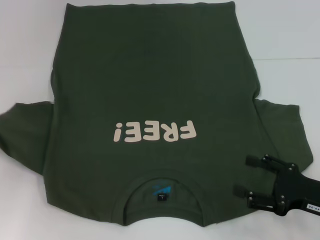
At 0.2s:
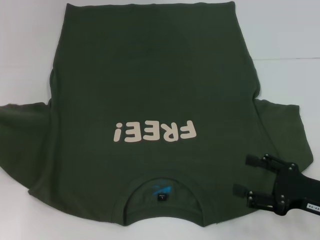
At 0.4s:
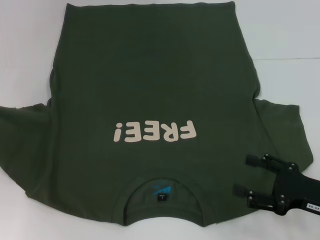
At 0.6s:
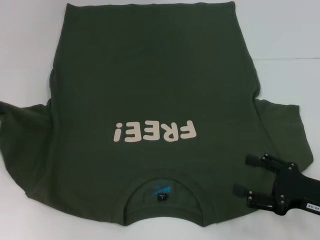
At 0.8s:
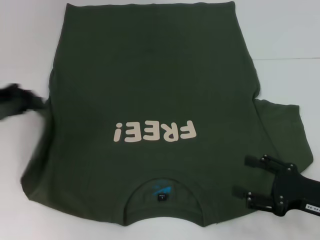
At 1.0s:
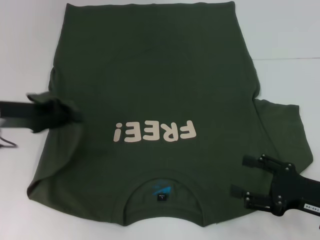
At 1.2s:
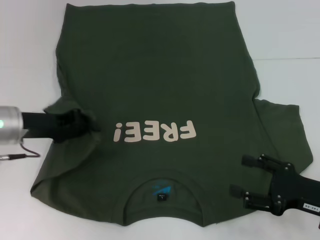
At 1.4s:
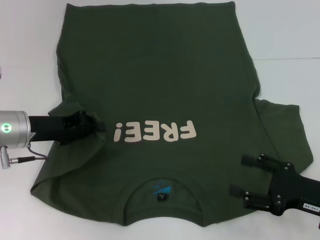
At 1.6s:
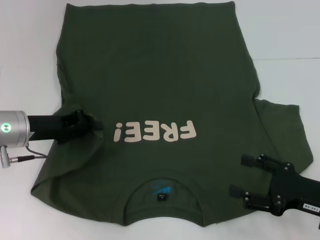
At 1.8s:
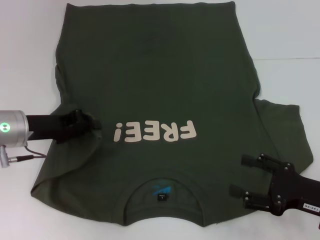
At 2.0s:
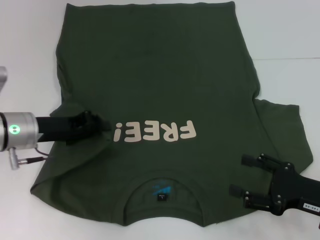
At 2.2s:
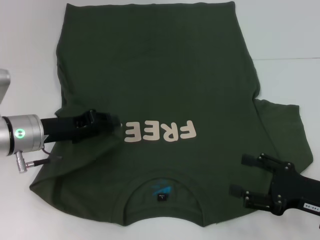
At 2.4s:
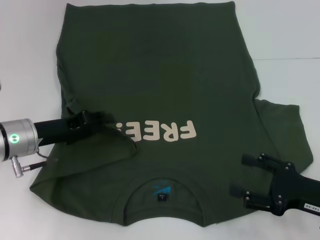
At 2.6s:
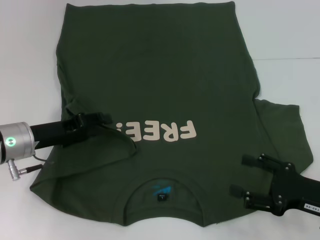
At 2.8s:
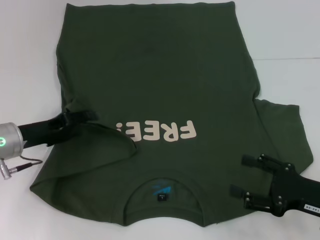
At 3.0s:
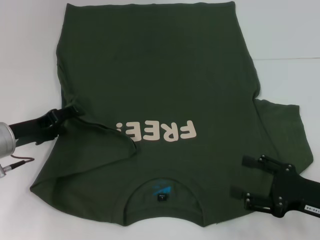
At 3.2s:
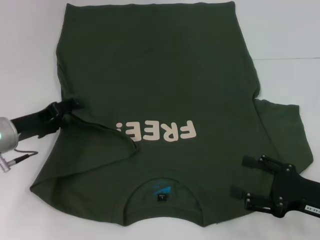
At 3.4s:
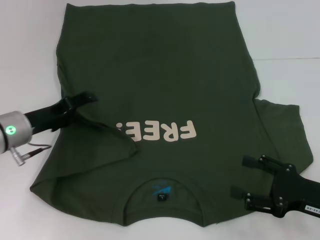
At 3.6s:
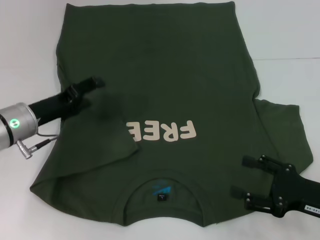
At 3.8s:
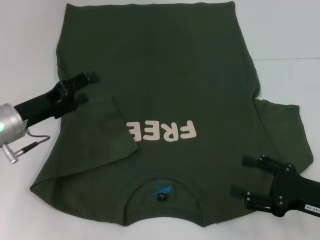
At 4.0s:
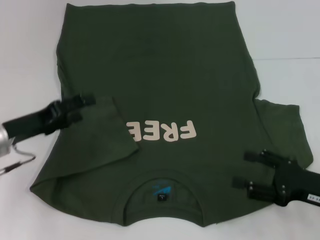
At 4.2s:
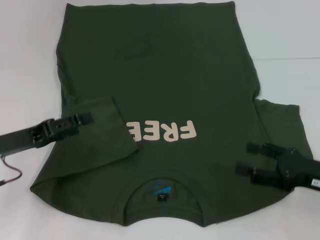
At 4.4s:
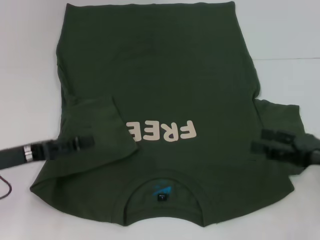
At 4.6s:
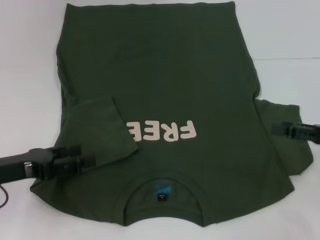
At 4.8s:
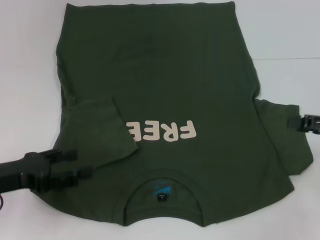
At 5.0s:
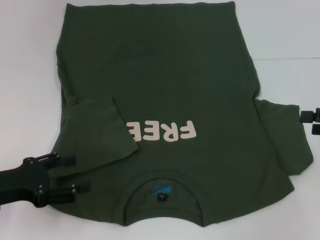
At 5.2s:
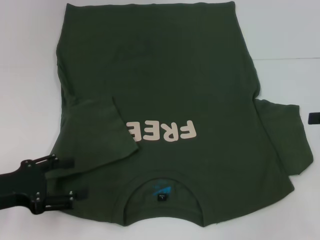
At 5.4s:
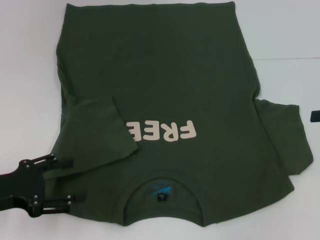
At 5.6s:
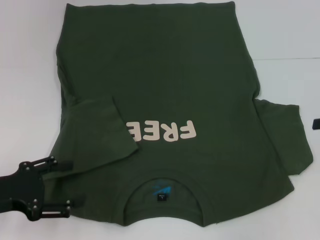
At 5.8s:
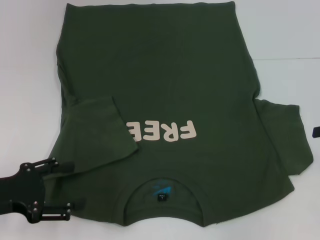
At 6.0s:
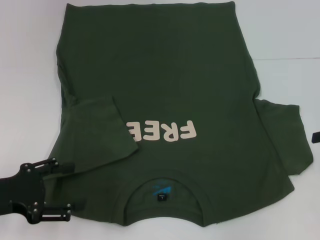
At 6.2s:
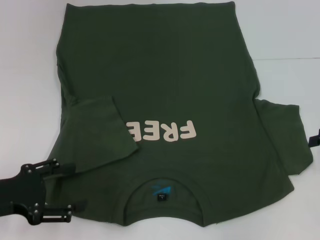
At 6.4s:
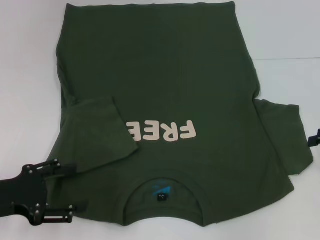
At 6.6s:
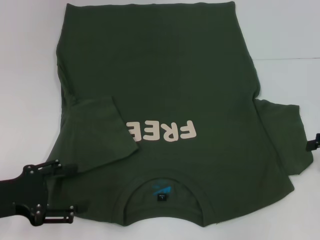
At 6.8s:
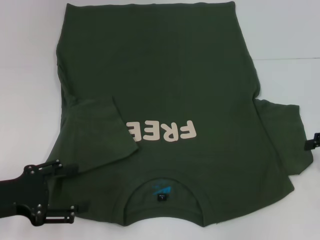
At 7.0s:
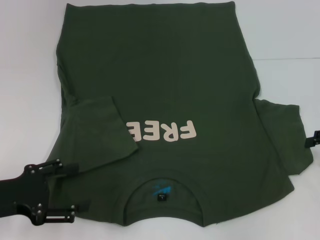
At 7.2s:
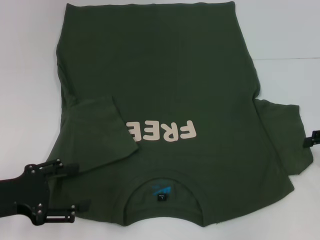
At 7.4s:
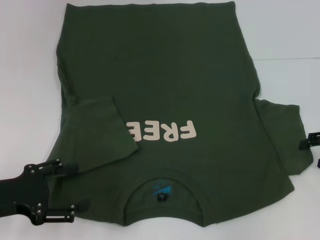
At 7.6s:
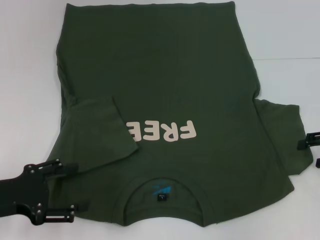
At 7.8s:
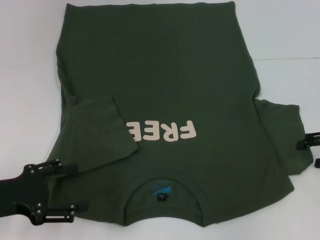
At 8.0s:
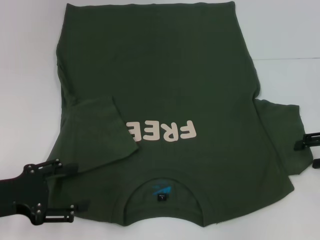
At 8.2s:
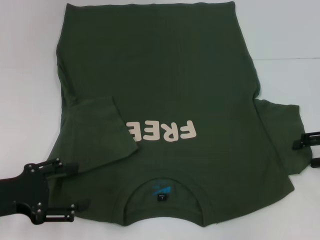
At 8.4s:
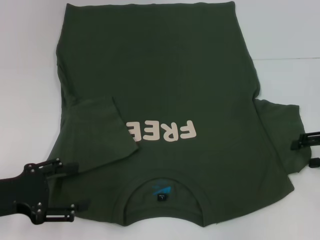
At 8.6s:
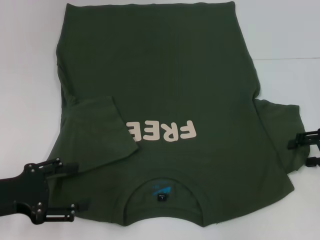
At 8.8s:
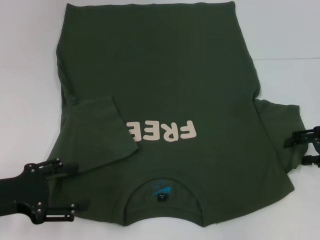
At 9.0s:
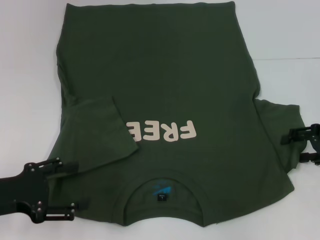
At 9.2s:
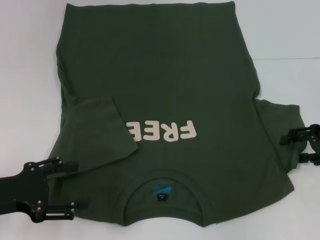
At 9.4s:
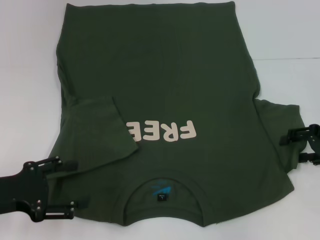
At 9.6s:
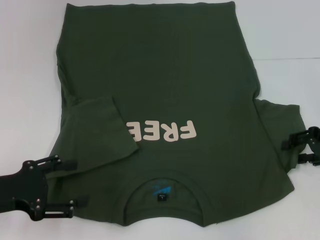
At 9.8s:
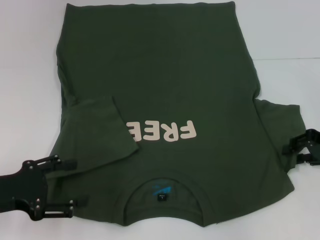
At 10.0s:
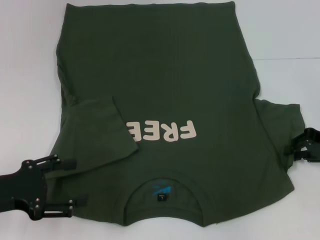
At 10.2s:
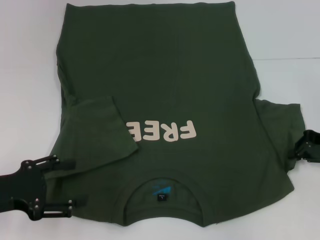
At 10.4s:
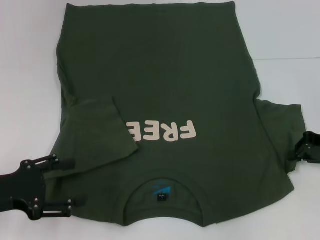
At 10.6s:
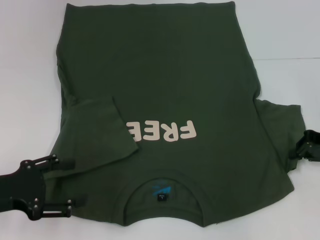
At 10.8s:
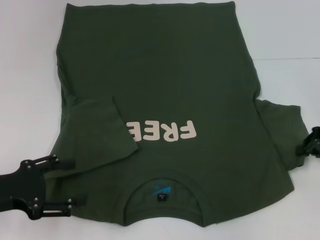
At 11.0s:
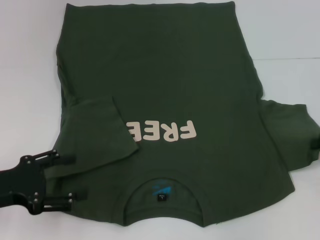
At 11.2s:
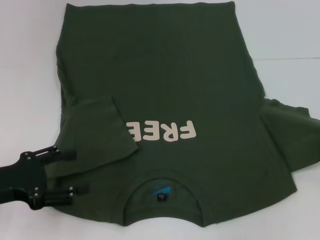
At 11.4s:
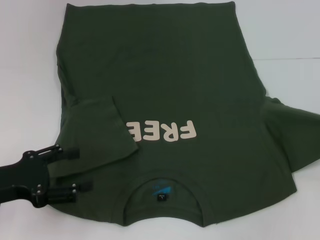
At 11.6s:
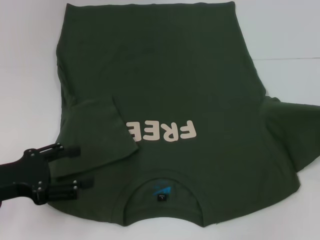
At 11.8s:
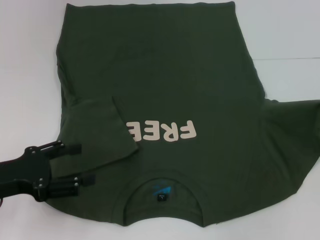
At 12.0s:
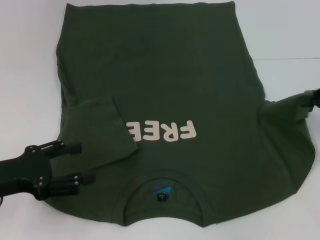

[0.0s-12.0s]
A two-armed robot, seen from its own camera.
Step, 0.0s to 3.8s: Fold the bottom left sleeve with your left hand.
0.0s to 1.6s: The left gripper goes roughly 15 cm to the right.
1.6s to 3.0s: The left gripper opens its fingers.
3.0s to 4.4s: The right gripper moves approximately 5 cm; the left gripper is displaced backward by roughly 5 cm.
4.4s to 6.0s: The right gripper moves to the right, upward and forward, some 10 cm.
6.0s to 9.0s: The grippers make only small movements.
9.0s to 10.4s: The right gripper closes its fingers.
10.4s to 12.0s: The right gripper heads upward, covering roughly 5 cm.

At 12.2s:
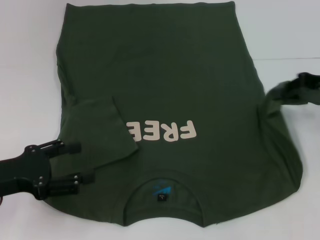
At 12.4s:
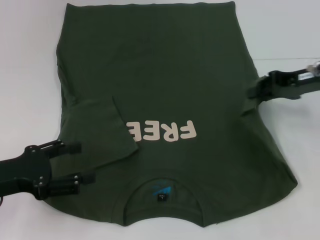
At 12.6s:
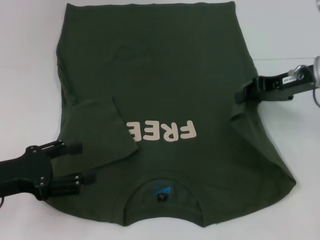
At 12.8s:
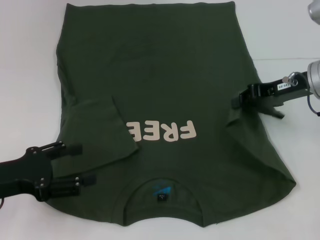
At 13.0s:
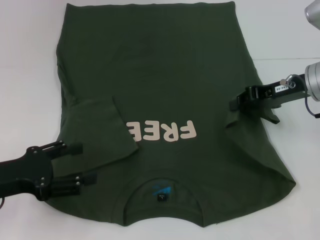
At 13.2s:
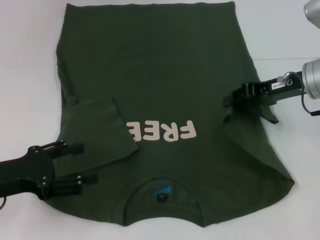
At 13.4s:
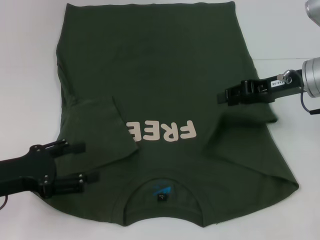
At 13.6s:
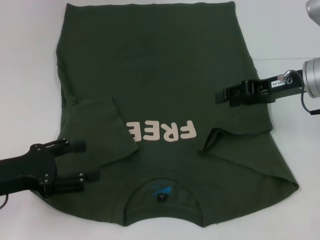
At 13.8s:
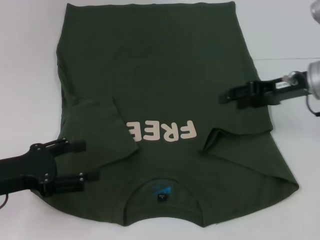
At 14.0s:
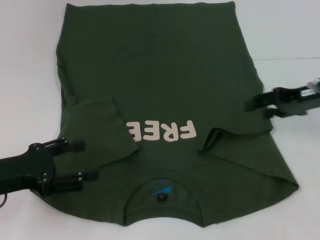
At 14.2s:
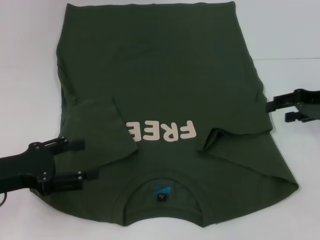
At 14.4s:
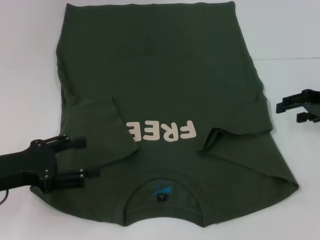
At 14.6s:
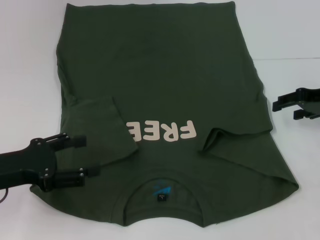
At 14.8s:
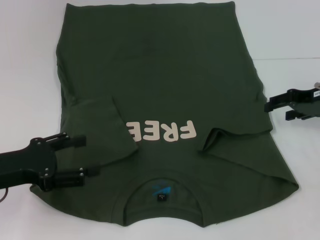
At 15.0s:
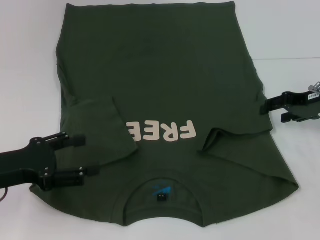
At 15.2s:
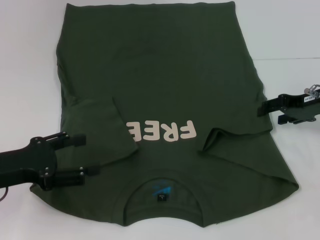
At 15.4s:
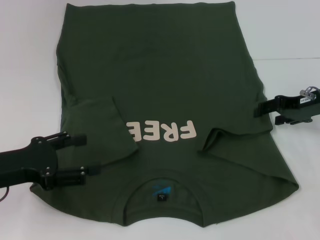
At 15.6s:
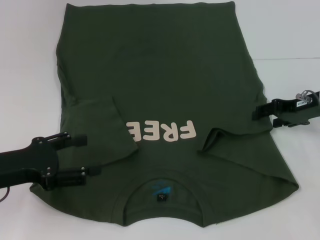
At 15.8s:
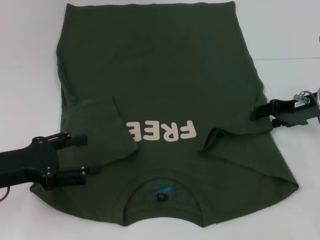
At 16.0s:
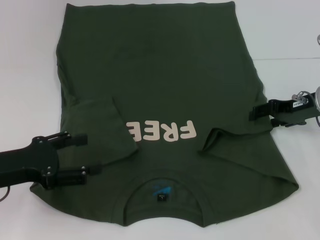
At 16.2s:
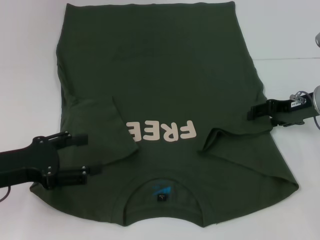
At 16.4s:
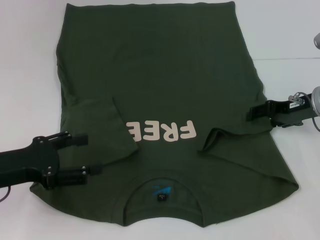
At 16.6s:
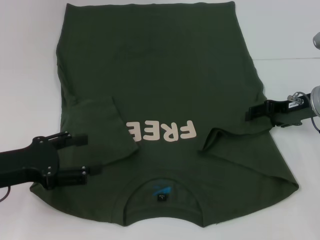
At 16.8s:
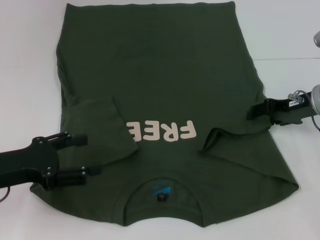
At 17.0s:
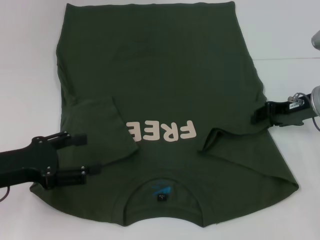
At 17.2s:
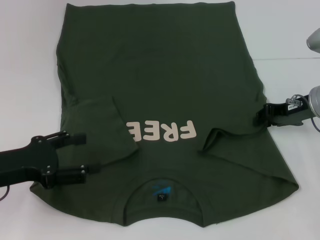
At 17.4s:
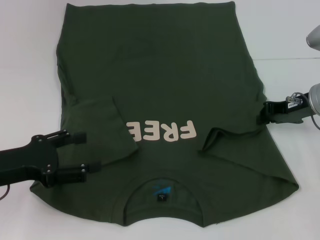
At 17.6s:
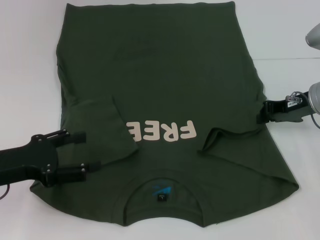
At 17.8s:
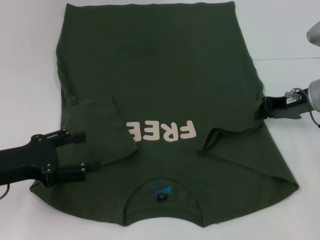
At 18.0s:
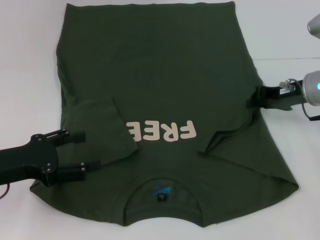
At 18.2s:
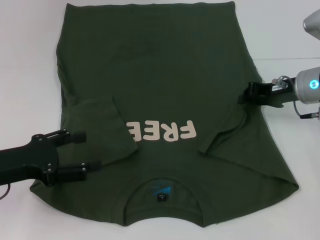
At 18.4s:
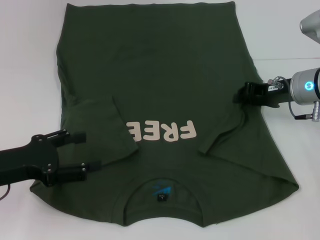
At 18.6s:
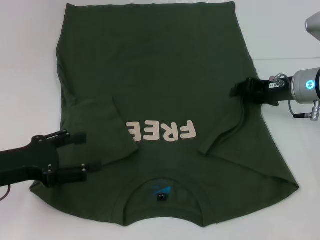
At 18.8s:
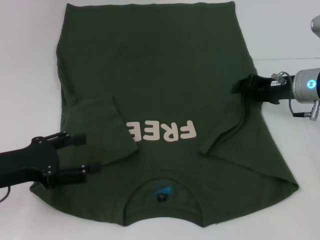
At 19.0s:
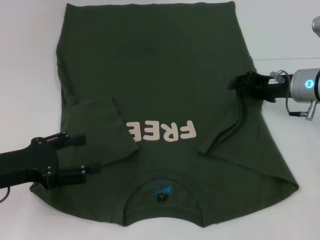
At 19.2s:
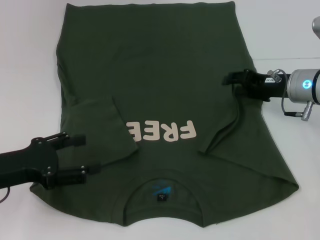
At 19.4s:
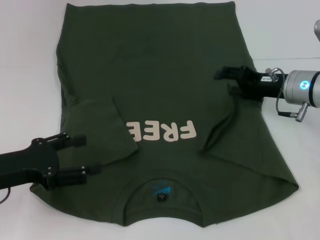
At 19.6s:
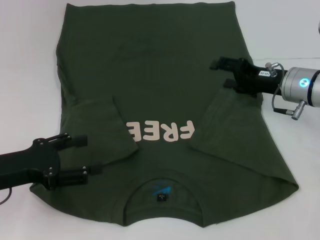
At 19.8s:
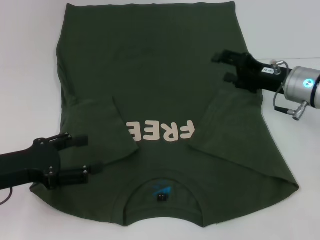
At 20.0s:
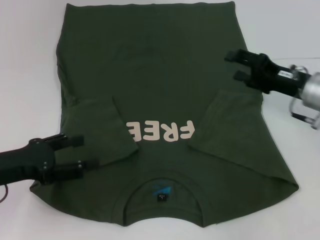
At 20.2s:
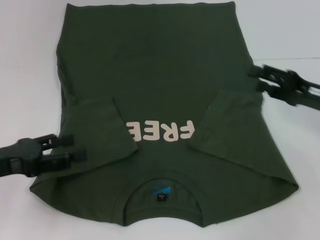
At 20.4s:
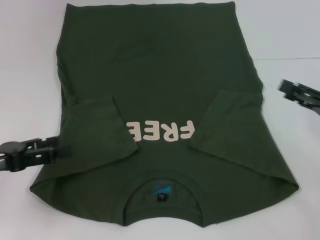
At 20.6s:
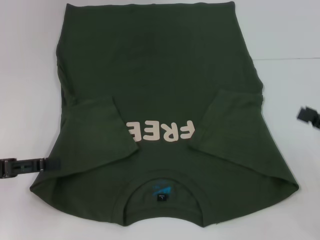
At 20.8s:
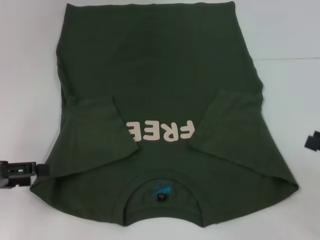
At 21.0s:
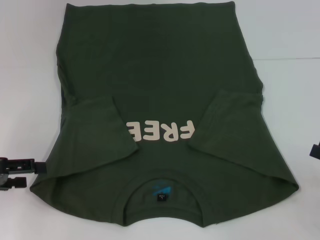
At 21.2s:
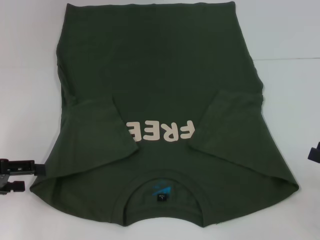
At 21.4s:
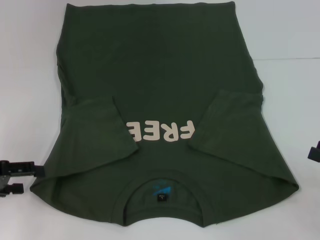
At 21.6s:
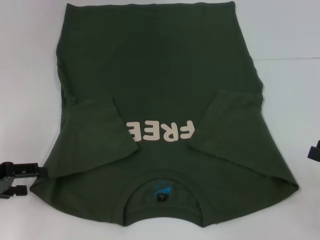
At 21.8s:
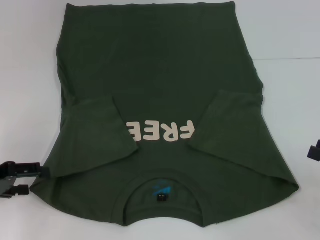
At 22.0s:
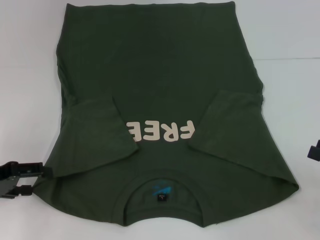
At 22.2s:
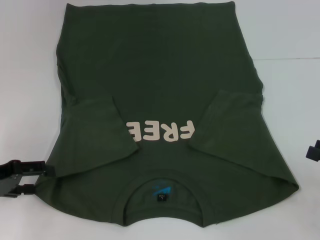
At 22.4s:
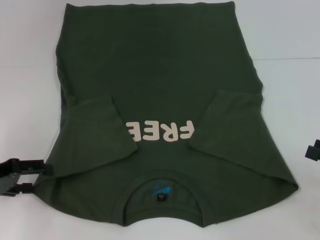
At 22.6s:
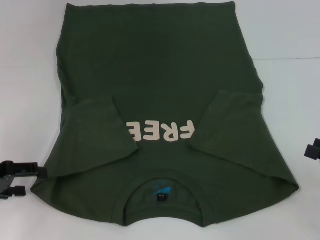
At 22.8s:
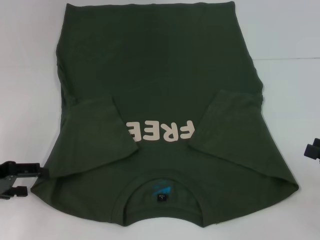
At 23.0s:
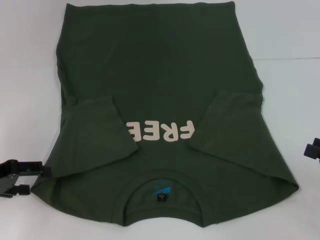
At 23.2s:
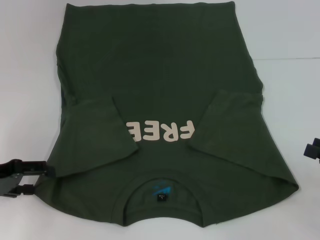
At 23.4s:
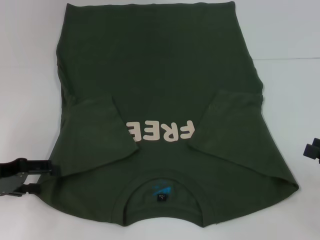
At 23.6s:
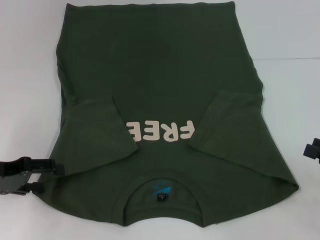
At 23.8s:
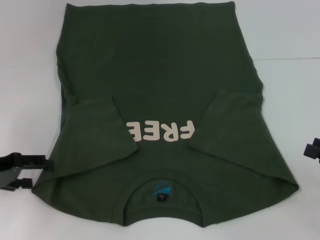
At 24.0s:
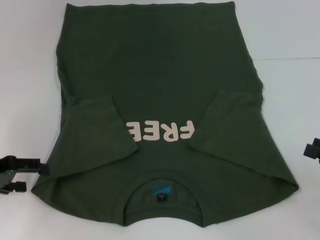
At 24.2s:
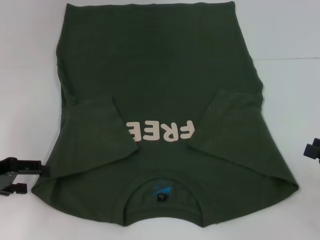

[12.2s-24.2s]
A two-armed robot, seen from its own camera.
Step, 12.2s to 20.0s: Fold the bottom right sleeve with your right hand.
12.2s to 13.8s: The right gripper moves to the left, roughly 5 cm, and opens its fingers.
15.2s to 16.6s: The grippers move only a little.
16.6s to 18.2s: The right gripper closes.
18.2s to 19.8s: The right gripper opens up.
19.8s to 21.2s: The right gripper moves backward and to the right, some 25 cm; the left gripper goes some 5 cm to the left.
21.2s to 24.2s: There are only small adjustments of the grippers.
